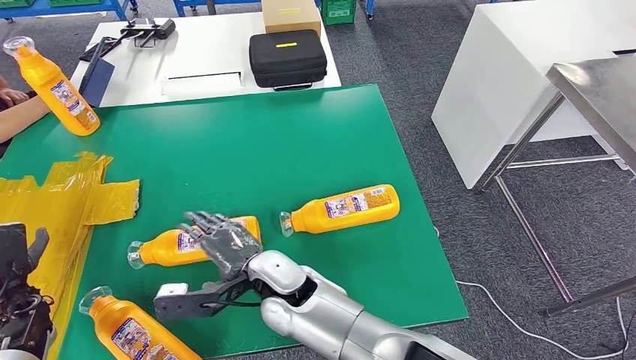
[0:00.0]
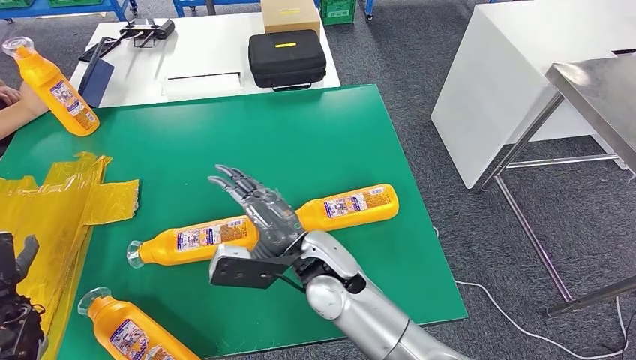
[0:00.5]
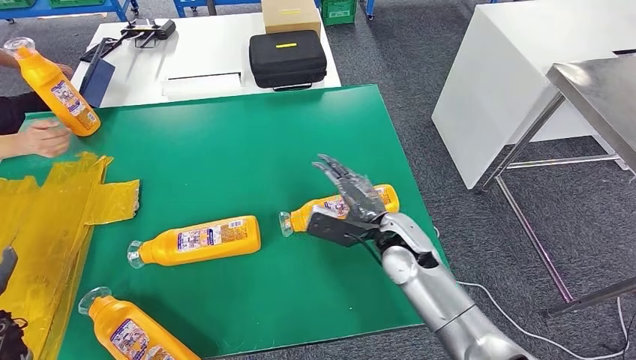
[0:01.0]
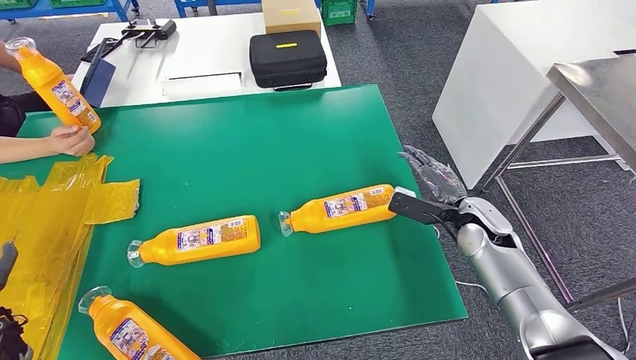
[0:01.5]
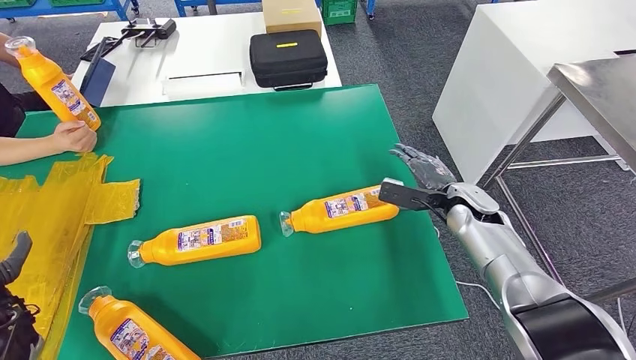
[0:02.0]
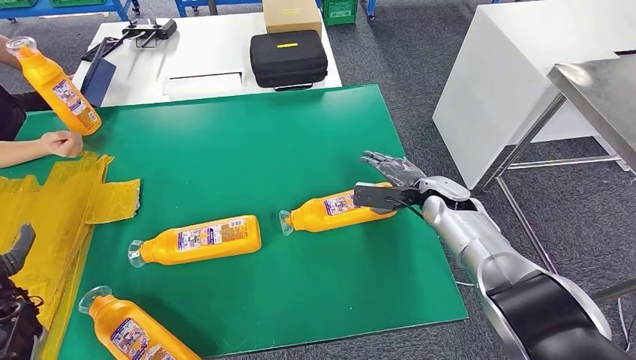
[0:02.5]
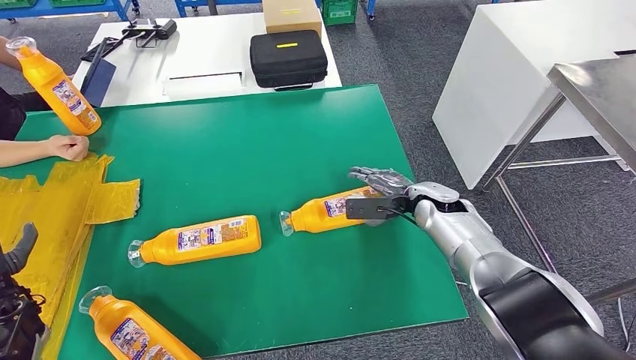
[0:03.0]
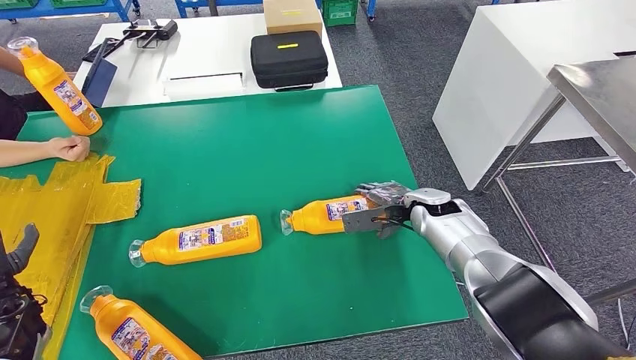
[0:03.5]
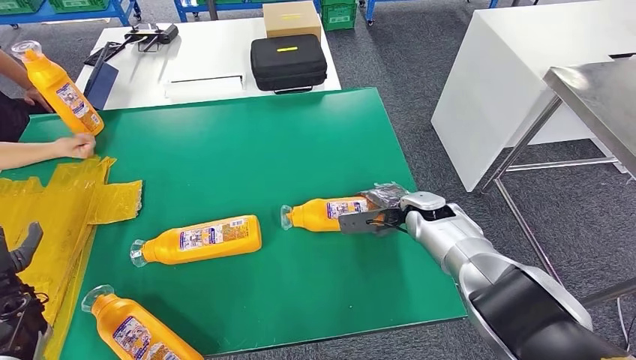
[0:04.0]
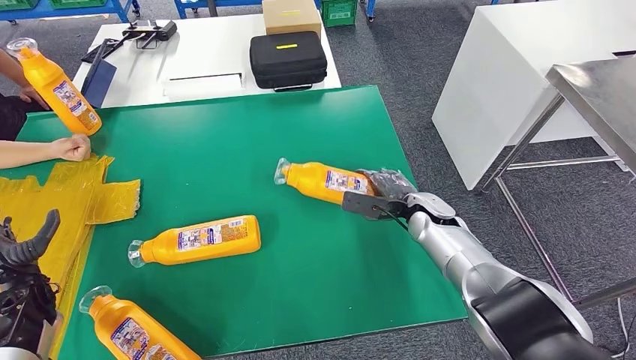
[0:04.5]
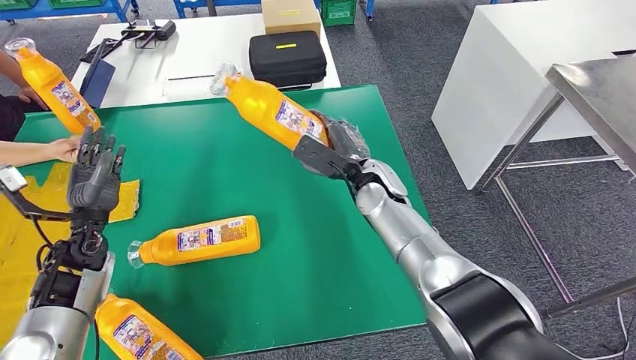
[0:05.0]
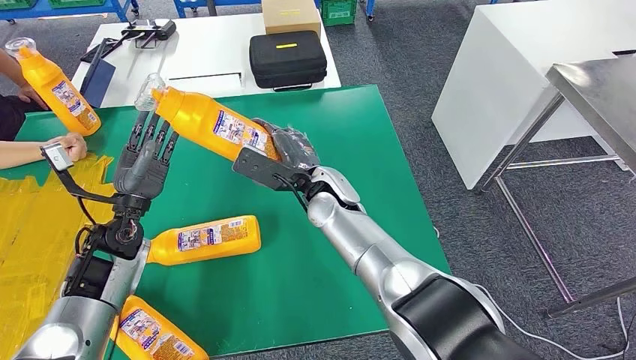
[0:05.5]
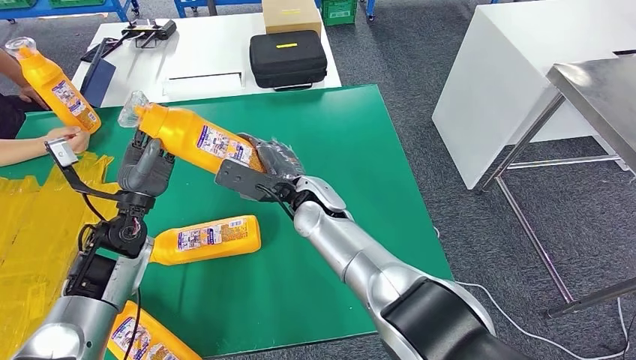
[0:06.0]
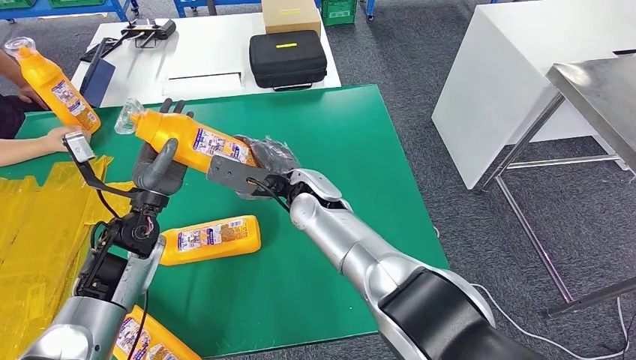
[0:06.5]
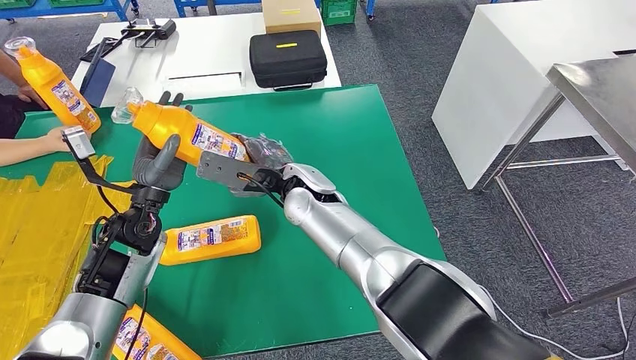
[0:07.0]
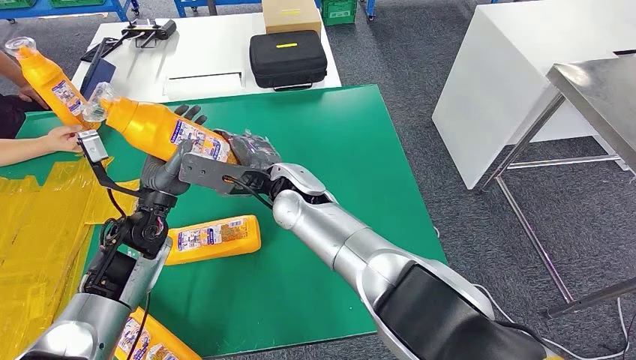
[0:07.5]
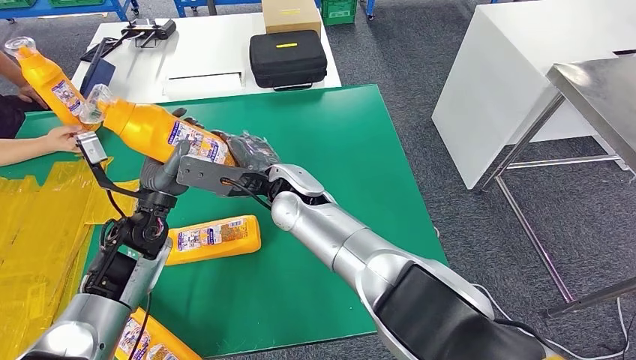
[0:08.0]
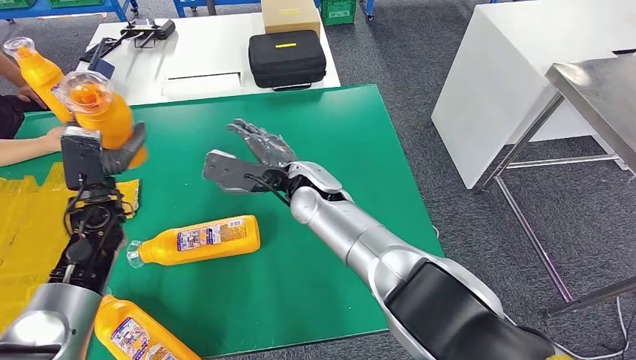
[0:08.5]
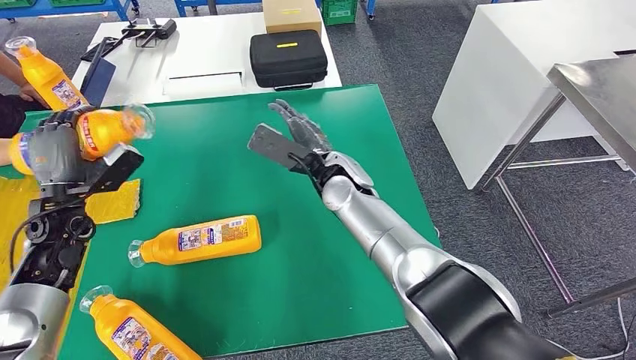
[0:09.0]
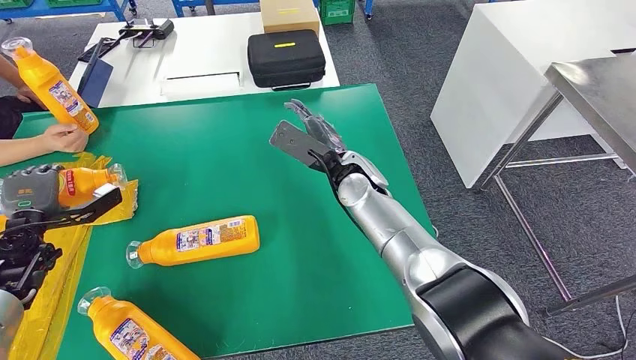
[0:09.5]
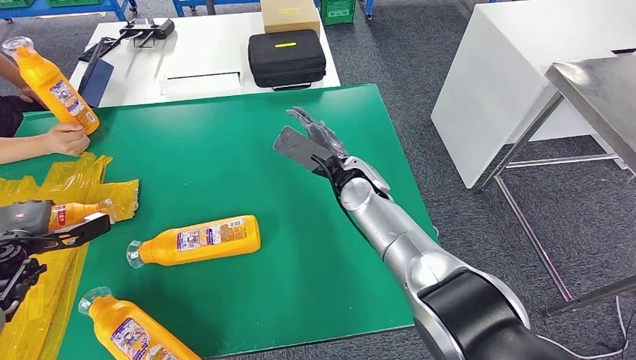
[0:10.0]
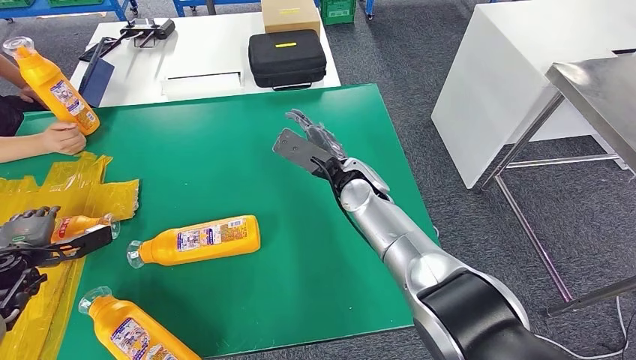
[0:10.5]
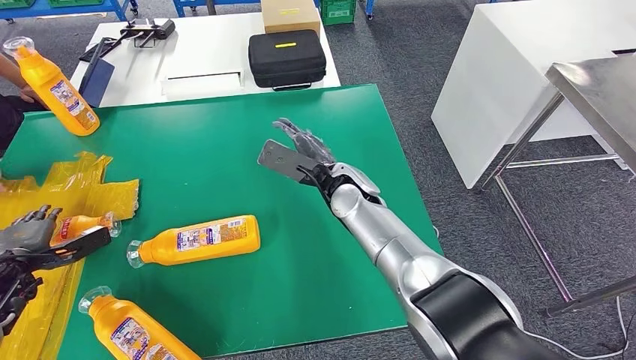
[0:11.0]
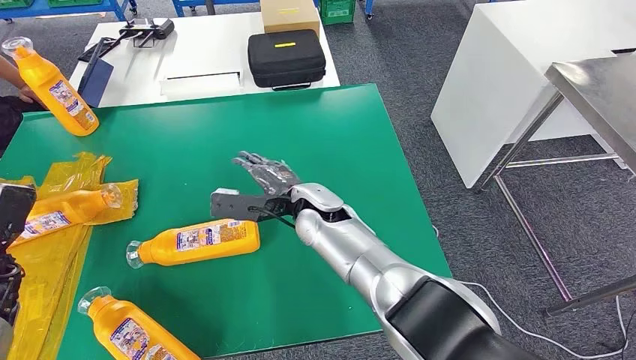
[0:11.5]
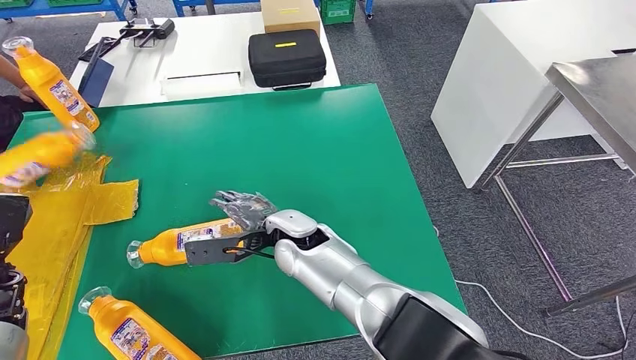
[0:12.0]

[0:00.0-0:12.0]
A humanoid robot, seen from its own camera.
Step, 0:00.0 to 0:05.5: Pick up the fast-moving consumer goods bottle from the table.
Step, 0:06.0 to 0:11.0: Flip the fast-moving consumer goods bottle to the front side.
0:06.0 to 0:08.0: The right hand shifts by about 5 cm.
0:10.0 to 0:12.0: The right hand heads to the left and backward, covering about 15 cm.

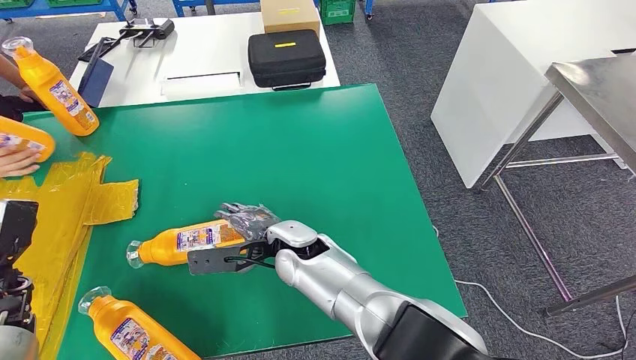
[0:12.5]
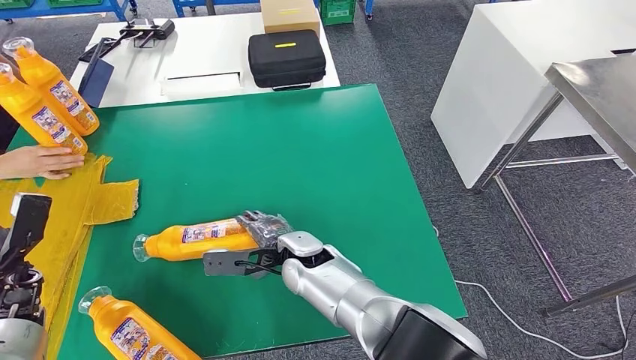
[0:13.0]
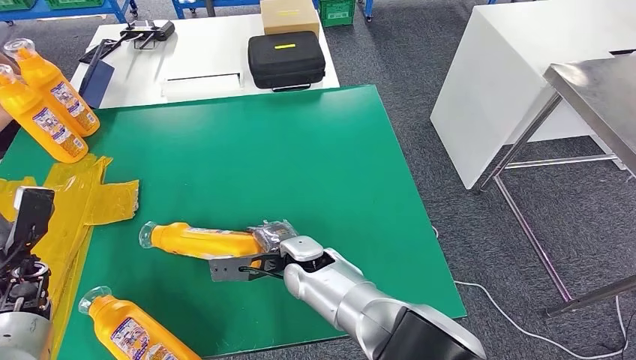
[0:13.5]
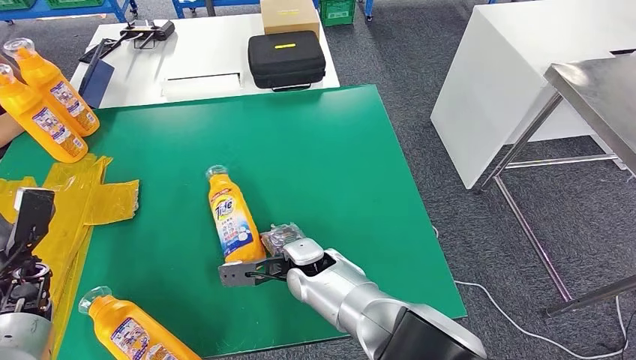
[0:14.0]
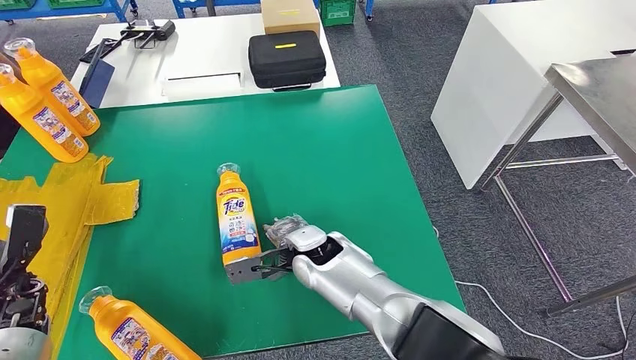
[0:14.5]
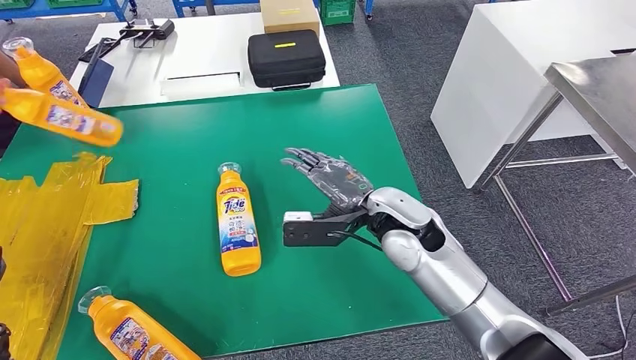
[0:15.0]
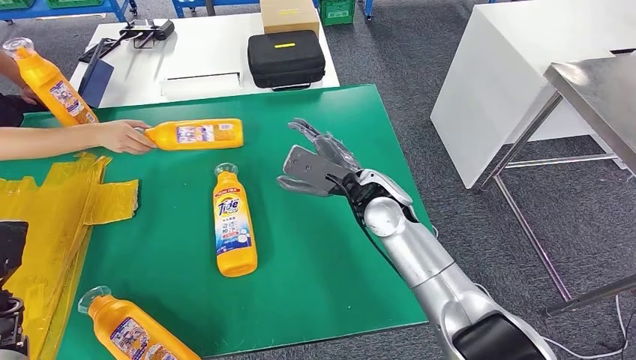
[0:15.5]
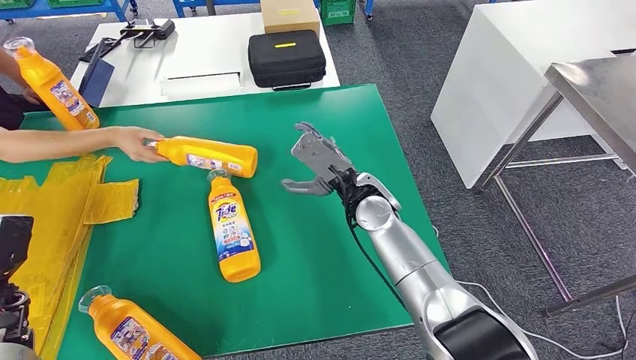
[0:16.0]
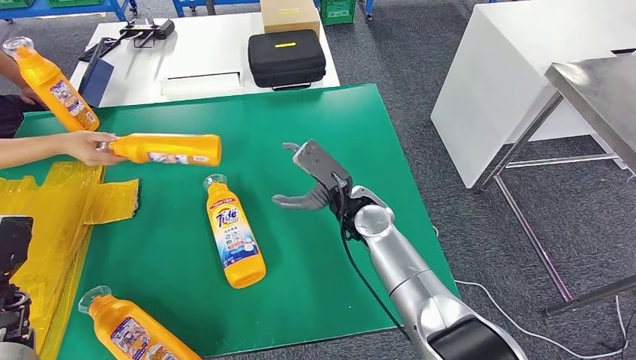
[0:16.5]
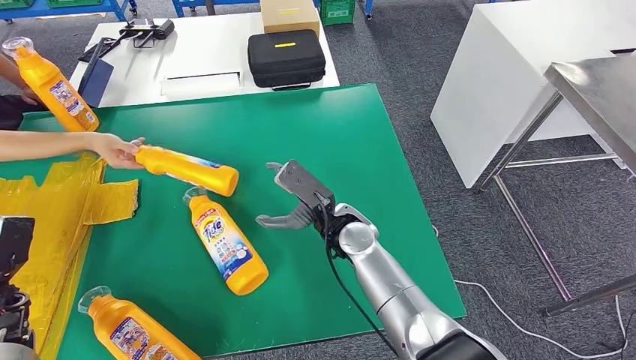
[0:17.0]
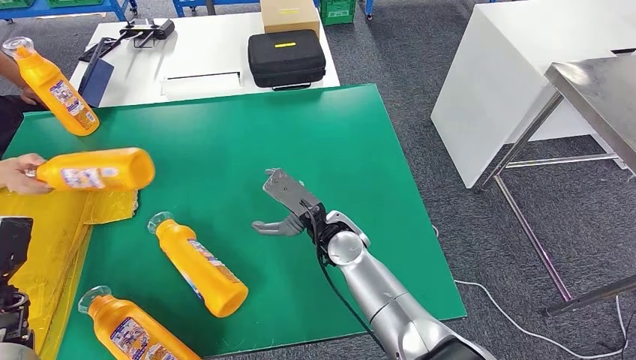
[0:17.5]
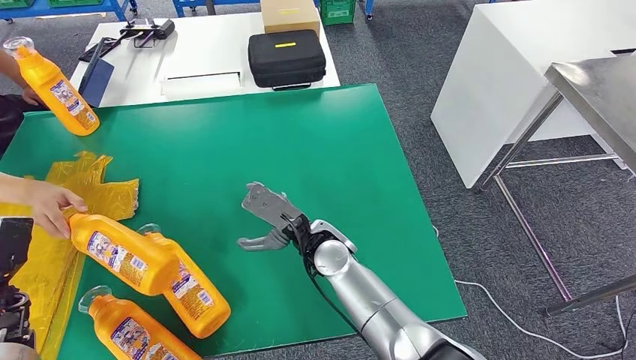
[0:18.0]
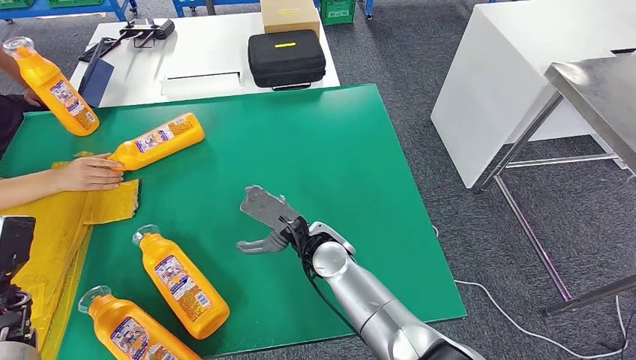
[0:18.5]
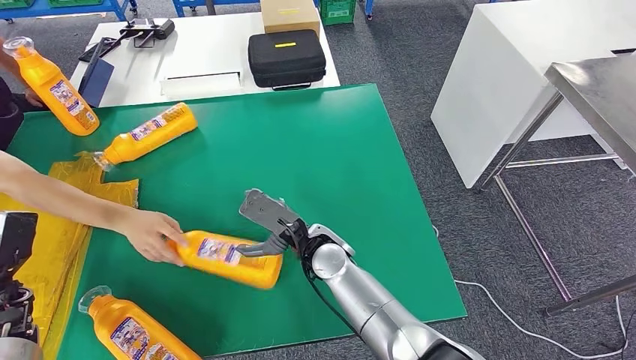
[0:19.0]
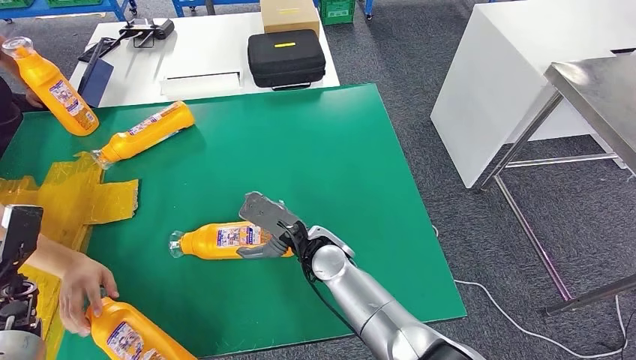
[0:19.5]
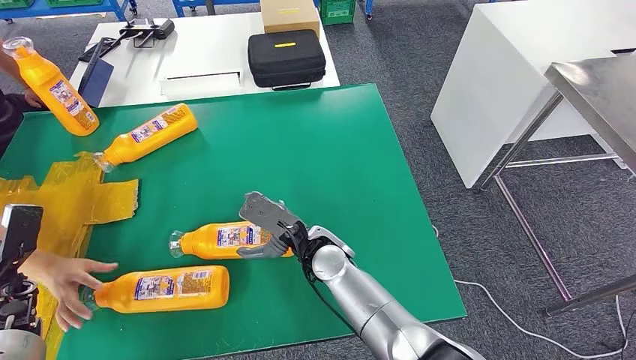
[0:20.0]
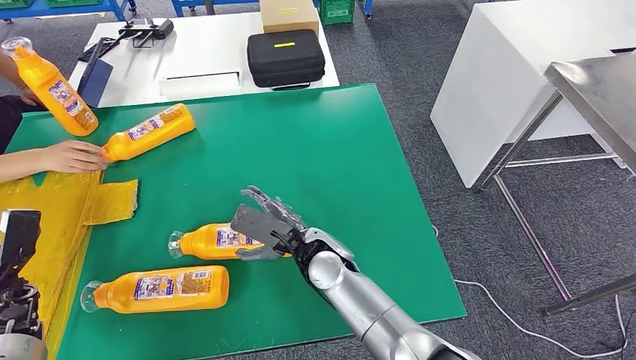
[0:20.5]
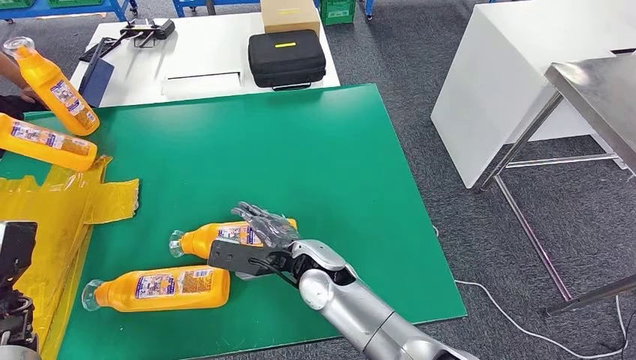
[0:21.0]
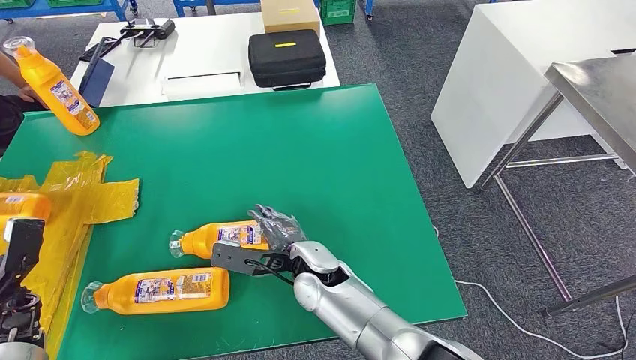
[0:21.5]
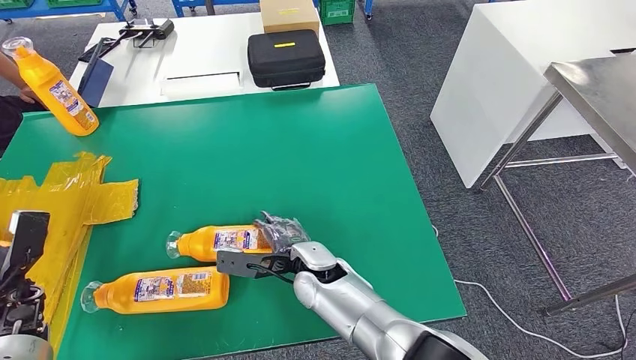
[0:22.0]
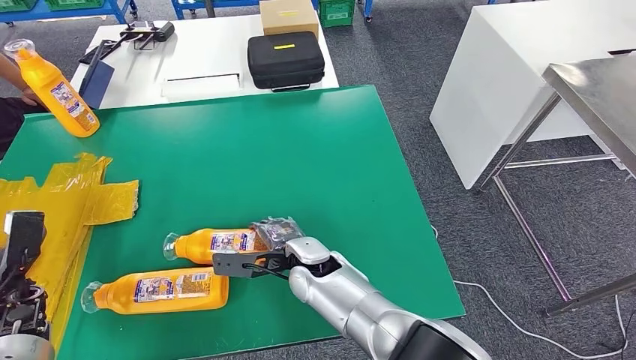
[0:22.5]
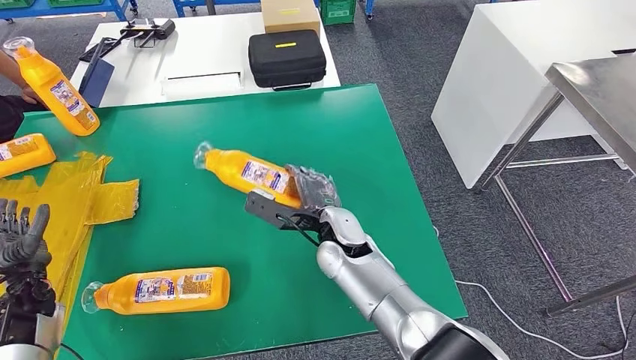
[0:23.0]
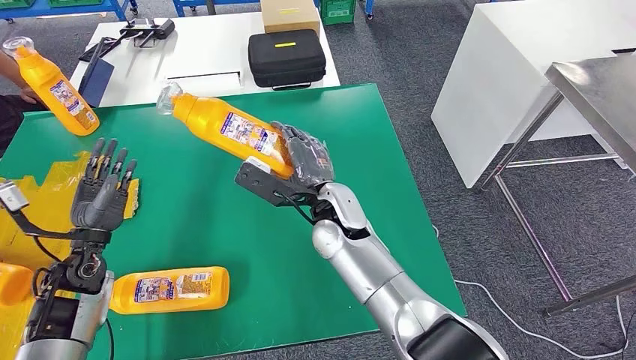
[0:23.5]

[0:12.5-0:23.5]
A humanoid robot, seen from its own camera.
Step, 0:12.5 to 0:23.0: Pick up the fast-moving consumer goods bottle from the table.
0:14.5 to 0:16.0: The right hand is displaced to the right, upward and forward by about 15 cm.
0:18.0 to 0:20.0: The hands move only a little.
